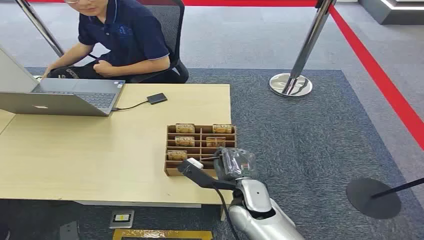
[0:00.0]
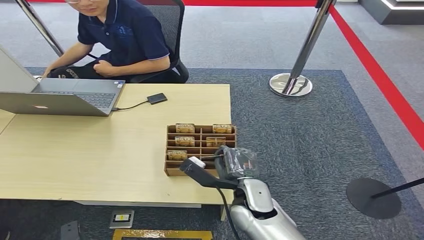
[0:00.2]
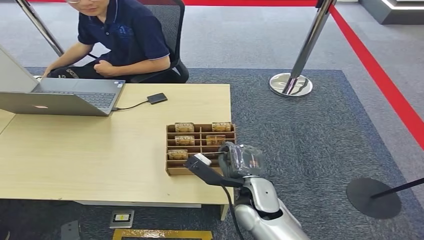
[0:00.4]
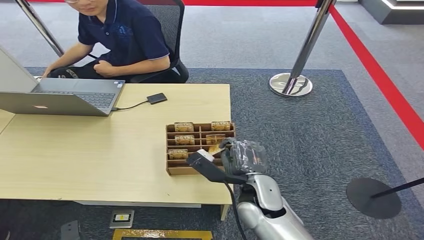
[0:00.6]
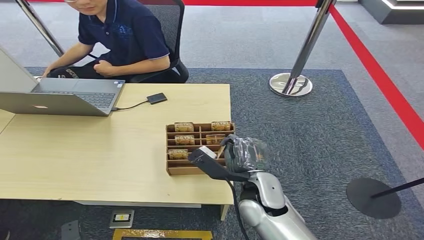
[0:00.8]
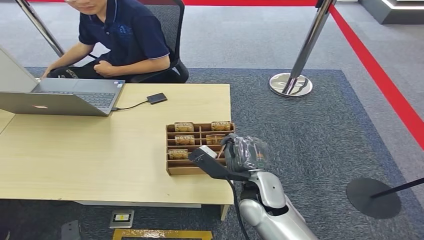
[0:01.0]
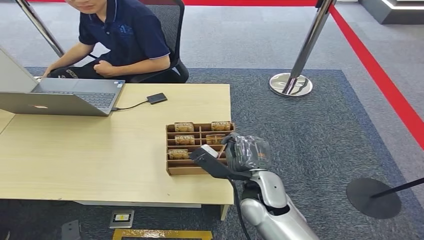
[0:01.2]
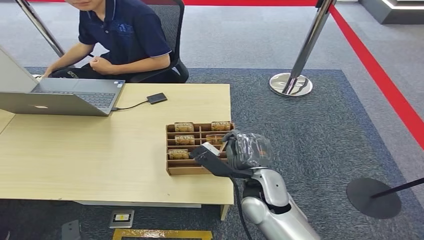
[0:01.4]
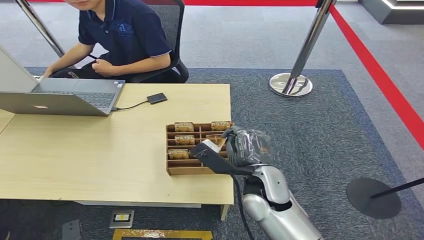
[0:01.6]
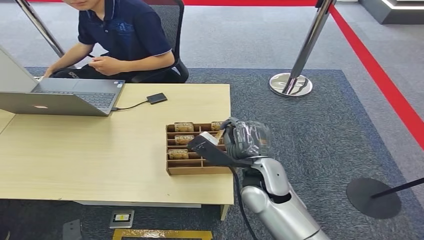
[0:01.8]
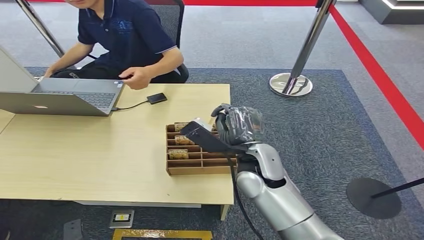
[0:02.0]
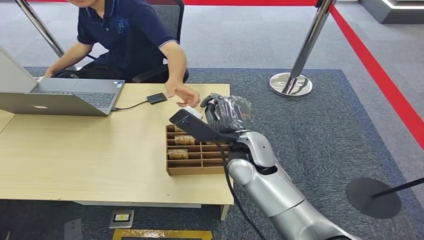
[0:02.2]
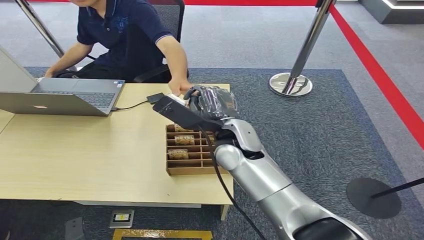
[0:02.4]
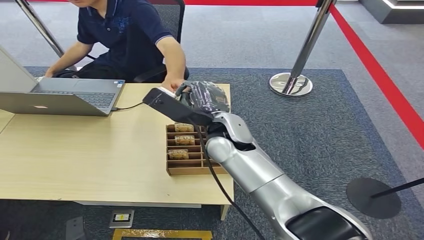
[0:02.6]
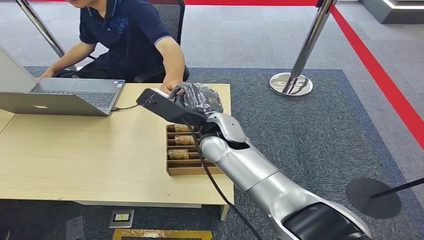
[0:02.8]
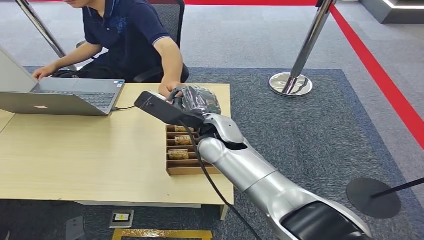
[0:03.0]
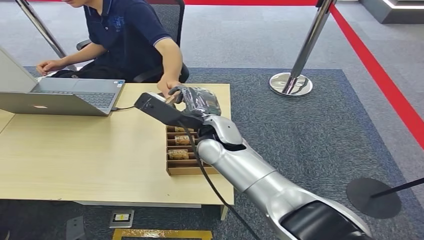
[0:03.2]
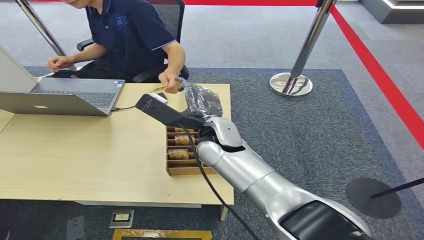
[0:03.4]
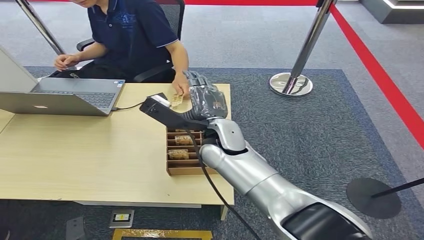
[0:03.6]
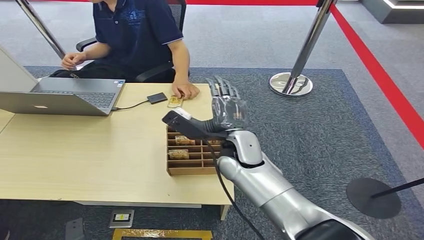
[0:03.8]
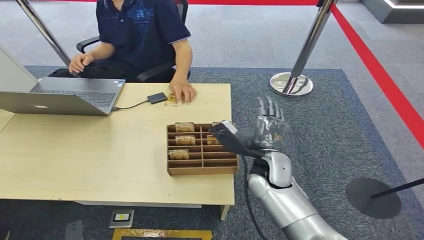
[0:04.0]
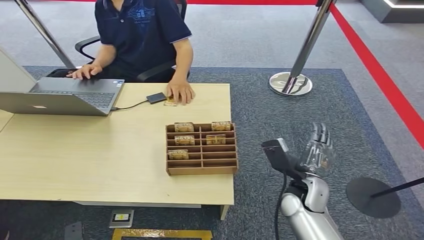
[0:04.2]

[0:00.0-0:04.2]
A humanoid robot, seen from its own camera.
Task of the whole recording: Pick up the card and hand it over to the target person.
Step, 0:00.0 to 0:02.0: Pick up the key card from the card box.
Step, 0:02.2 to 0:04.2: Hand the key card to the target.
0:01.4 to 0:02.8: The right hand shifts approximately 15 cm forward, upward and to the left.
0:02.8 to 0:04.2: The right hand travels to the right, downward and backward by about 35 cm.
